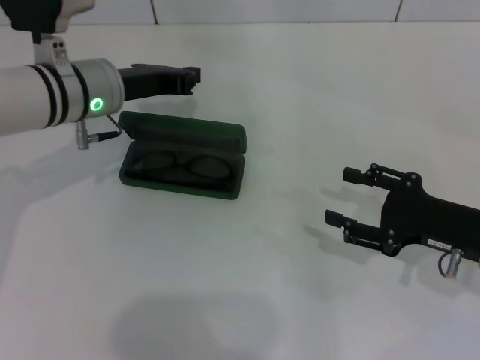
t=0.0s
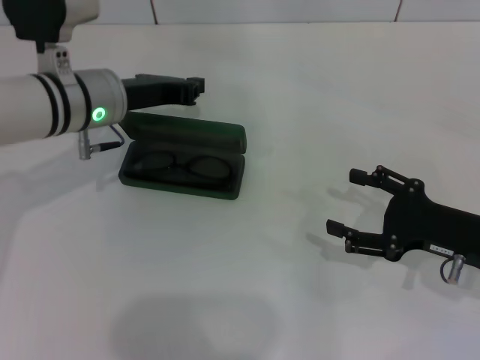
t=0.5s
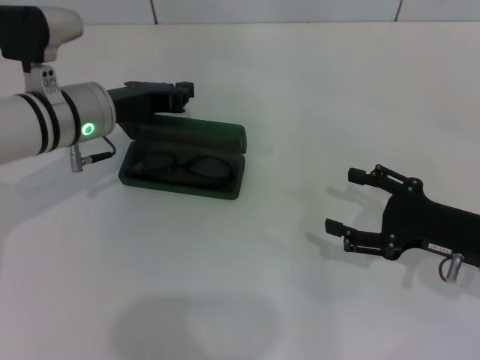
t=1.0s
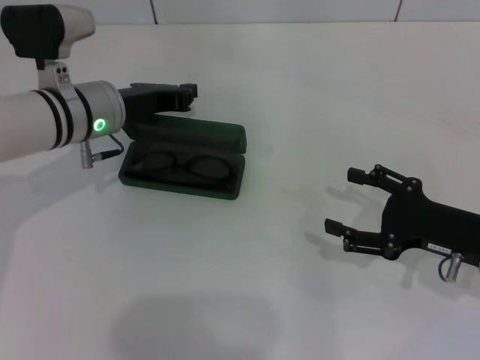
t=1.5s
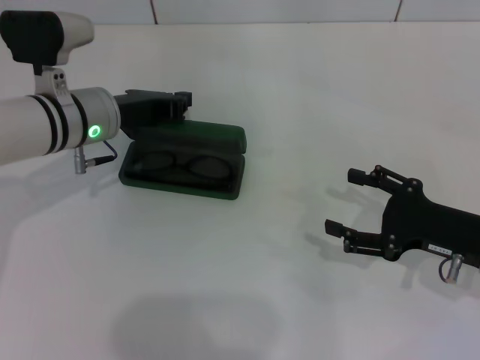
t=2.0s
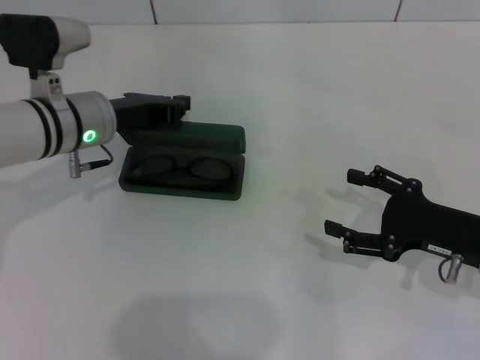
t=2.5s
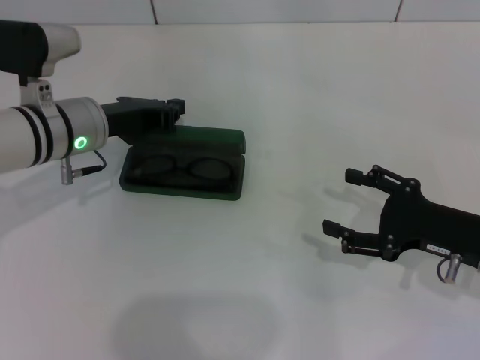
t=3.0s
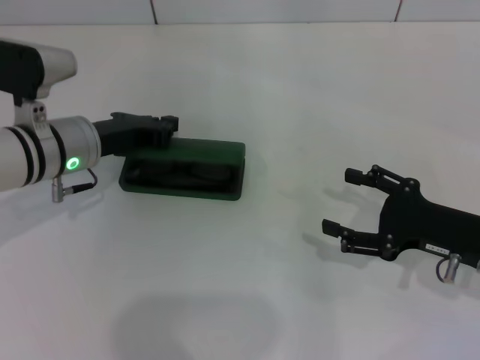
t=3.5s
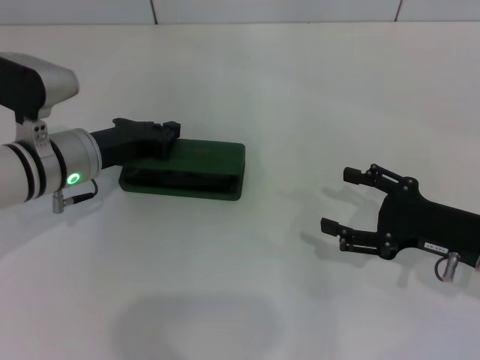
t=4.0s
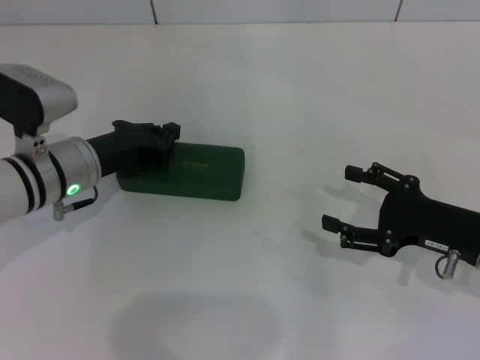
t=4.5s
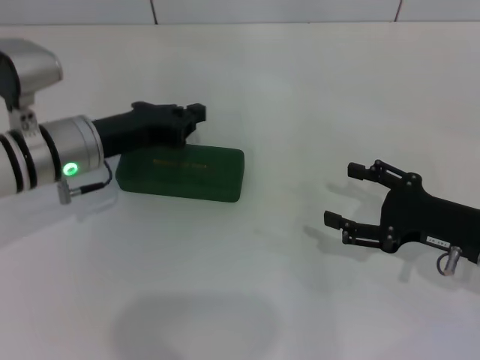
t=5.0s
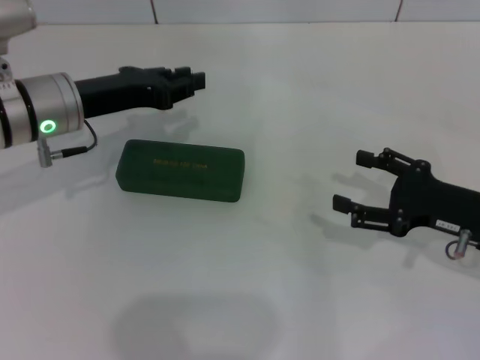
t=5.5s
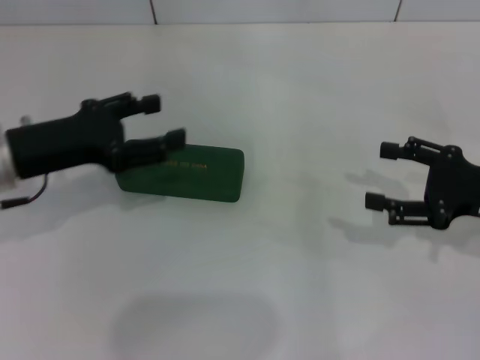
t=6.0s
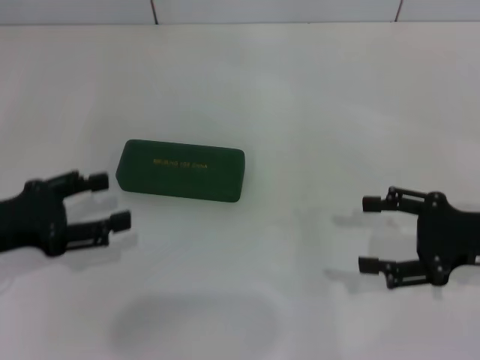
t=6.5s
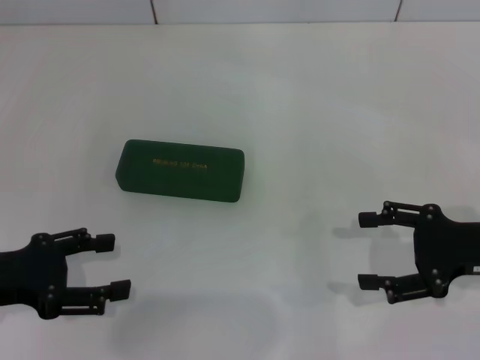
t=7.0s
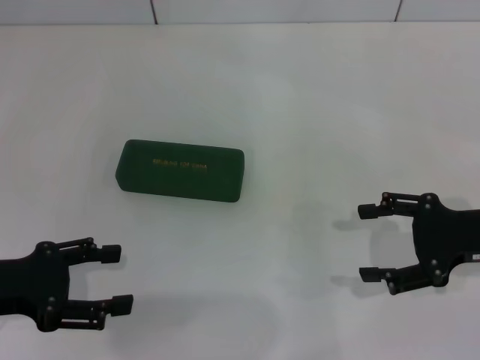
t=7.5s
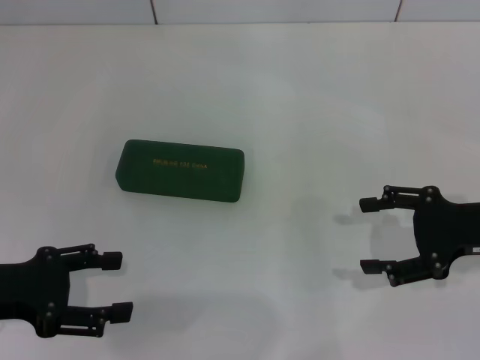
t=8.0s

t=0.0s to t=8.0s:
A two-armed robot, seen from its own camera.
Step, t=0.0s to t=4.5s: Close the glasses case with your left hand.
t=0.0s to t=2.0s: The grippers make only small movements.
t=2.0s to t=4.0s: The grippers stay close to where they were, moving slightly.
t=4.0s to t=6.0s: The left gripper shifts roughly 10 cm upward and to the left, and opens up; the right gripper ends up about 5 cm from where it was.
t=6.0s to t=8.0s: The left gripper moves backward, roughly 10 cm.
